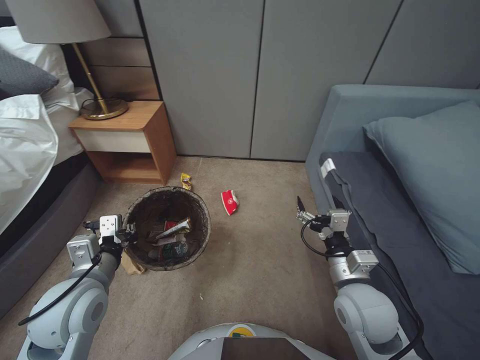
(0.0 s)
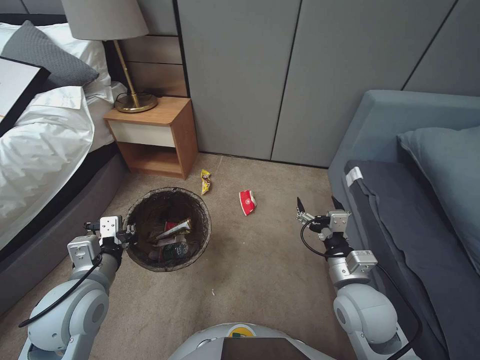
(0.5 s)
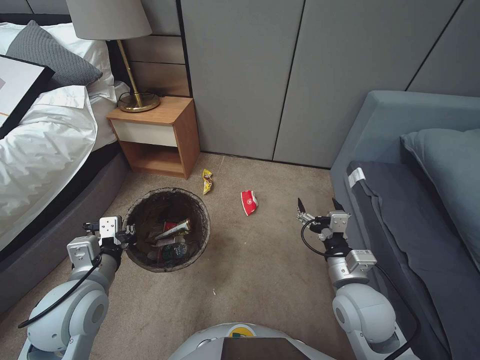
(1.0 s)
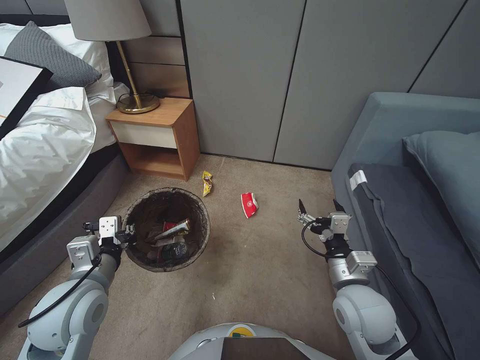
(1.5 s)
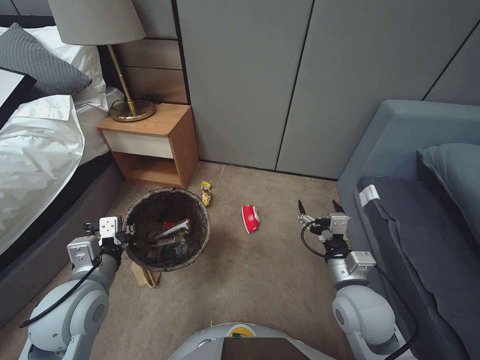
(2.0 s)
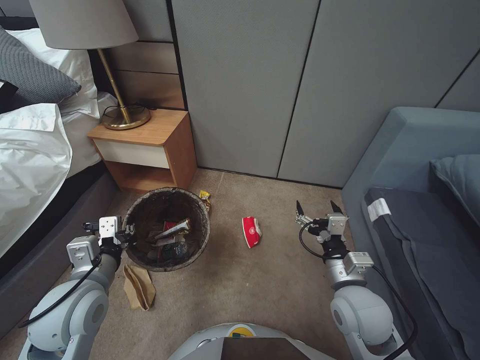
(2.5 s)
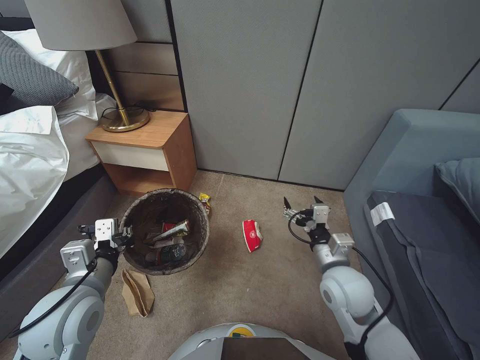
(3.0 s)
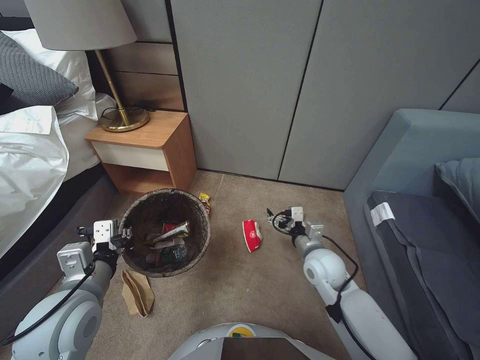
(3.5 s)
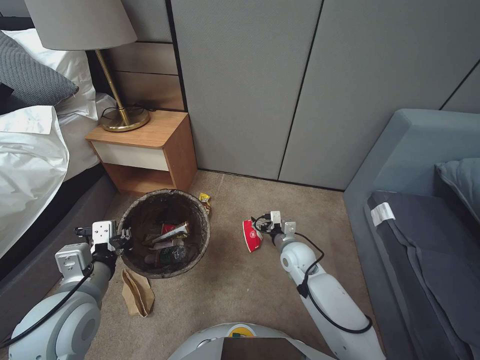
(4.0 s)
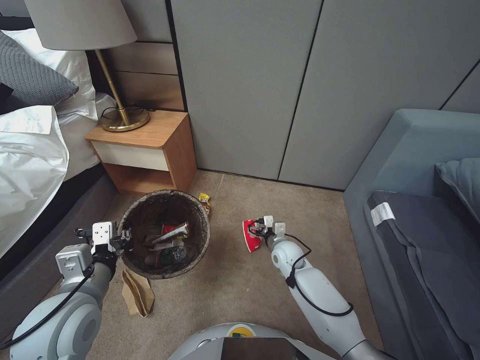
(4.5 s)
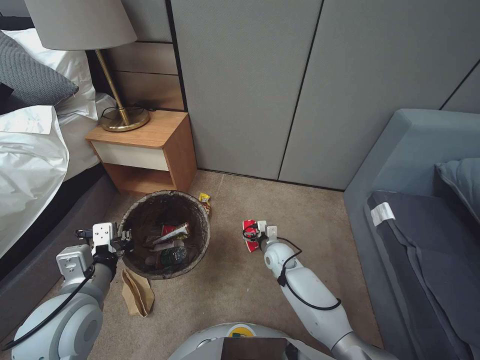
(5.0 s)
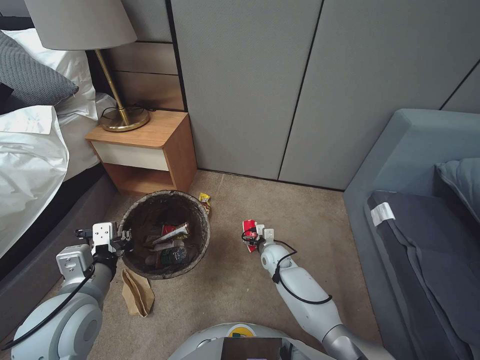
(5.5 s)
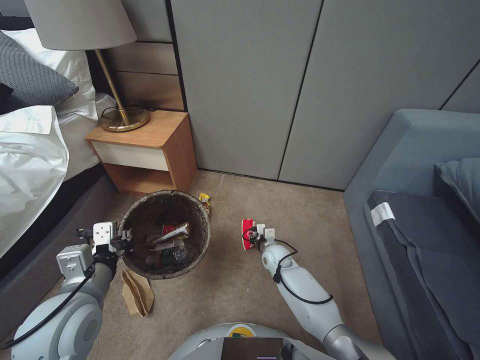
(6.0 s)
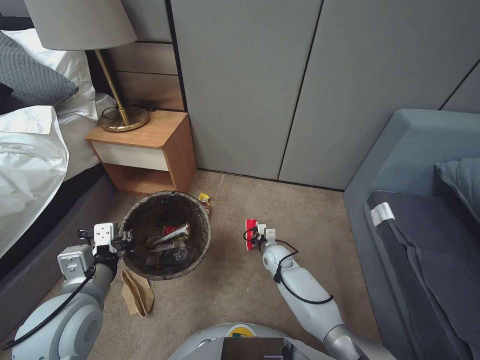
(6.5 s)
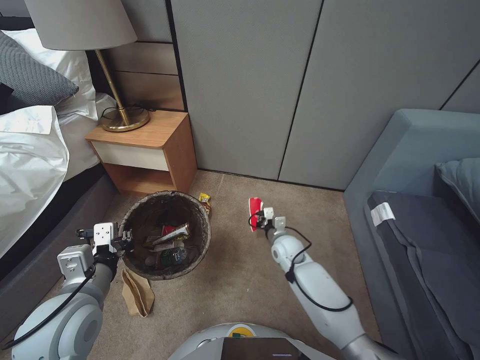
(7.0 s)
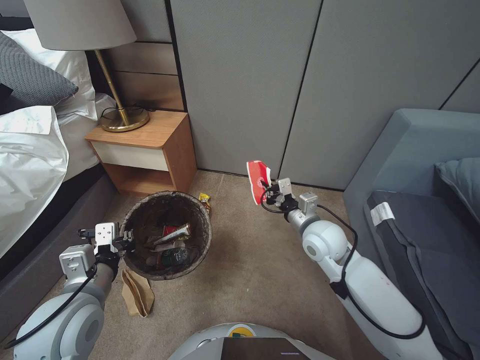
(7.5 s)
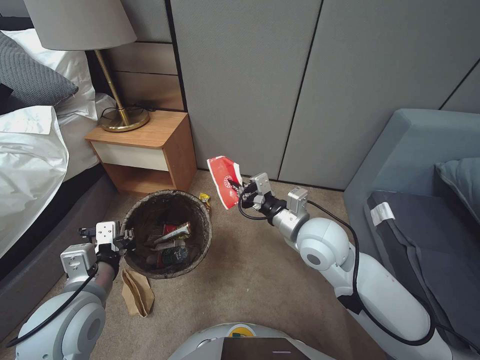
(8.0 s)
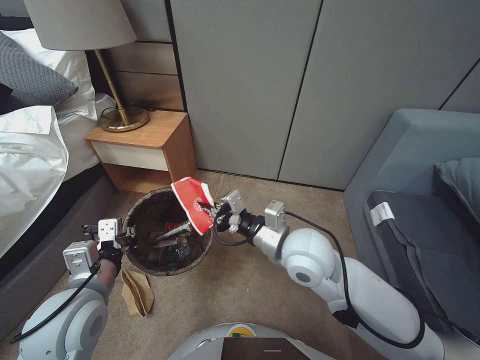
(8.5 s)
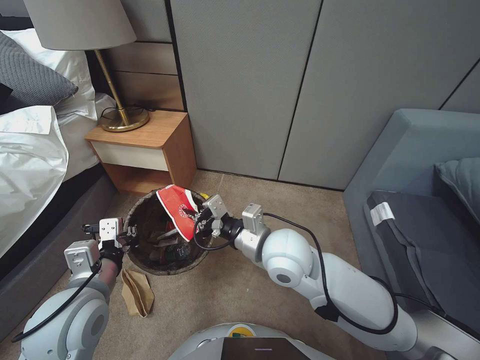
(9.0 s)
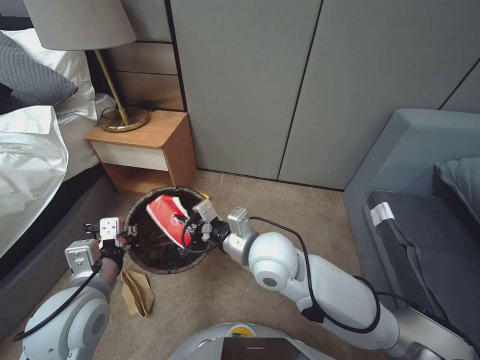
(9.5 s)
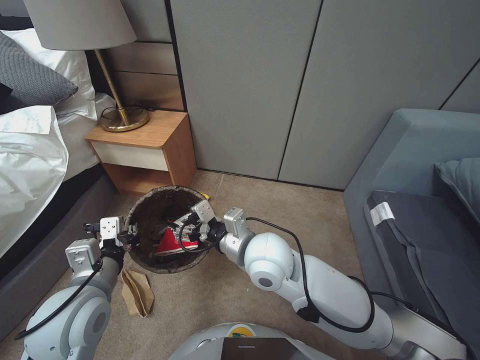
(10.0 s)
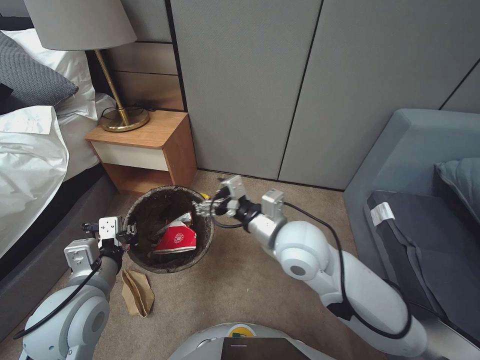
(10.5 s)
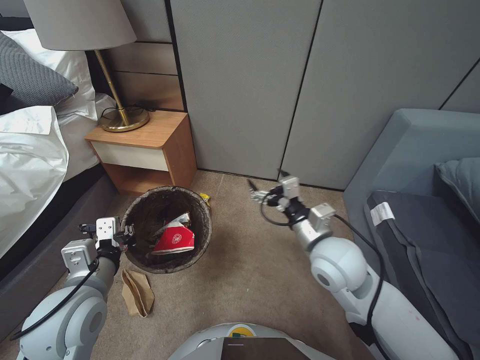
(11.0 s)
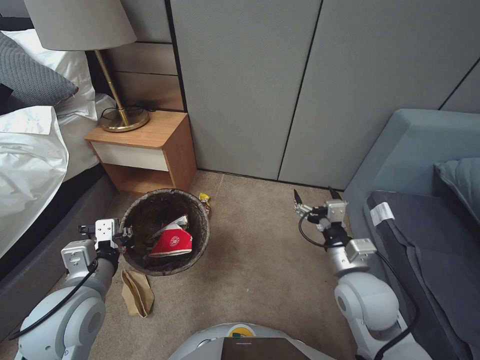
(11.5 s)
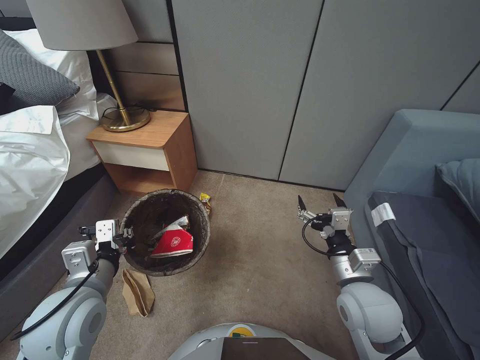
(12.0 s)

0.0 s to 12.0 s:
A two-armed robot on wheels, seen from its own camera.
Task of the whole recording: Pick up the trash bin, then pick up the garbage from the floor and place it into the trash bin.
2.0 to 4.0 s: The right gripper is displaced forward and downward by some 20 cm.
4.0 to 6.0 s: The right gripper heads downward, covering about 10 cm, and closes up.
6.0 to 8.0 s: The right gripper moves upward, approximately 30 cm, and closes up.
8.0 to 10.0 s: The right gripper heads to the left, covering some 10 cm, and opens its fingers.
10.0 to 12.0 s: The right gripper heads to the right, covering approximately 20 cm.

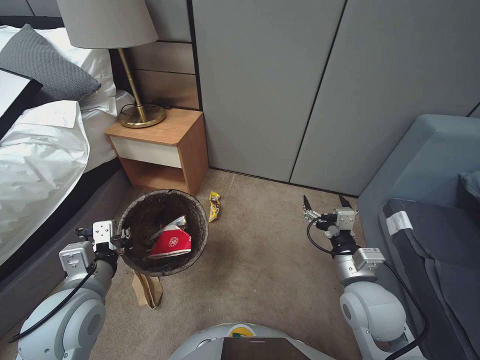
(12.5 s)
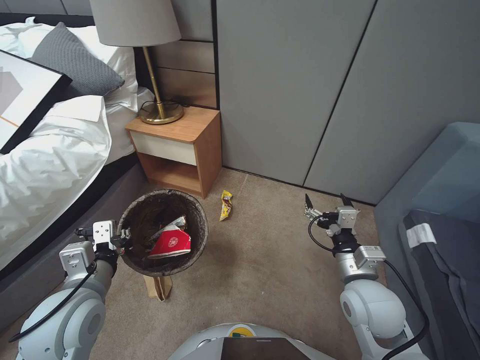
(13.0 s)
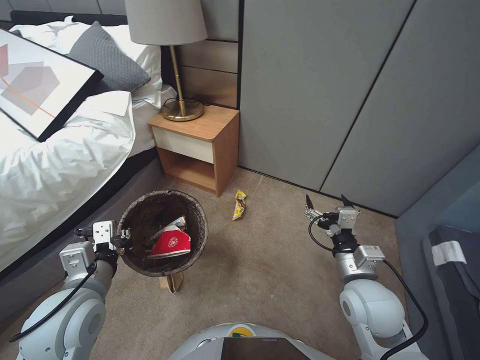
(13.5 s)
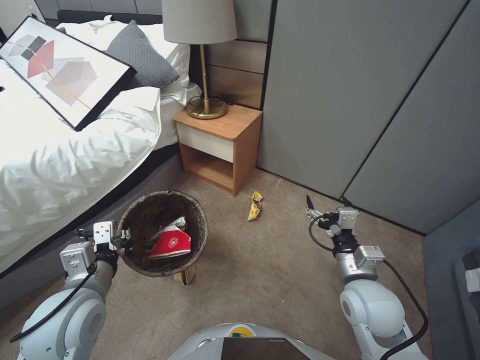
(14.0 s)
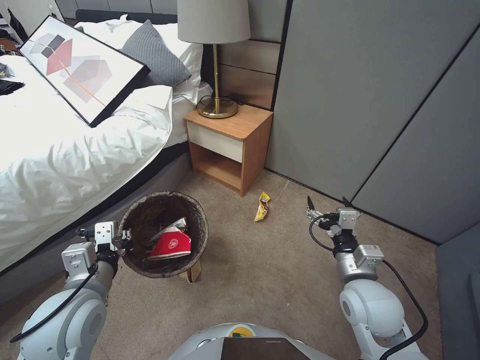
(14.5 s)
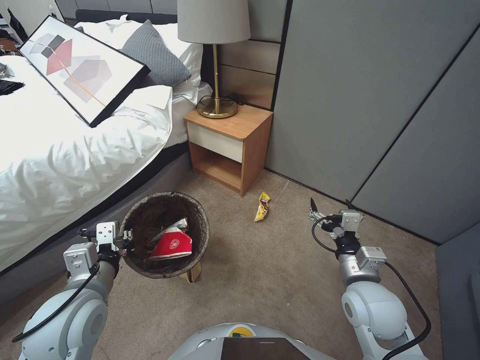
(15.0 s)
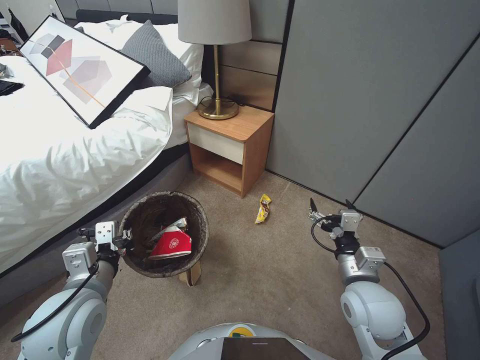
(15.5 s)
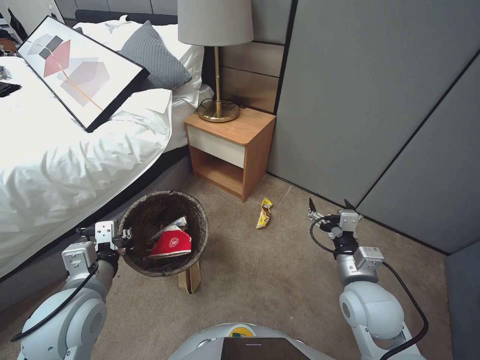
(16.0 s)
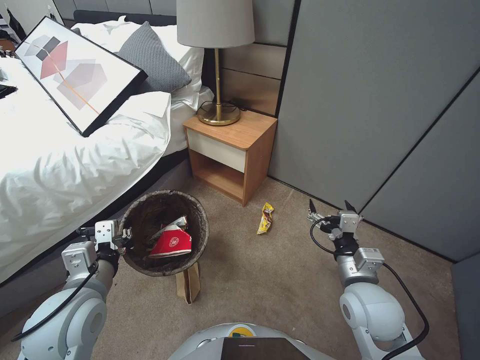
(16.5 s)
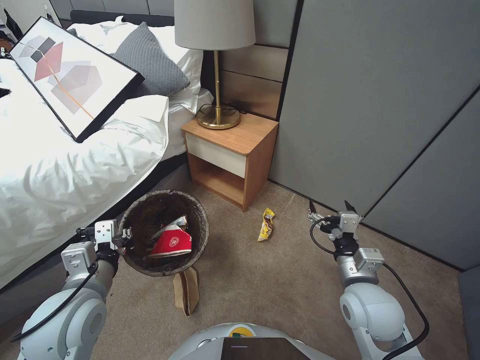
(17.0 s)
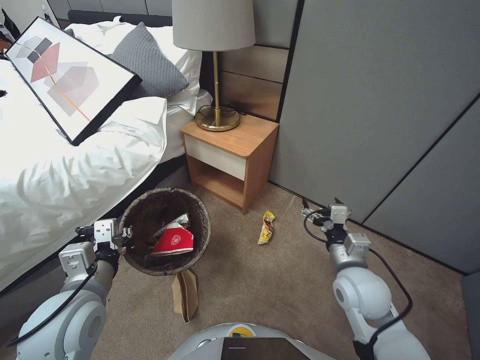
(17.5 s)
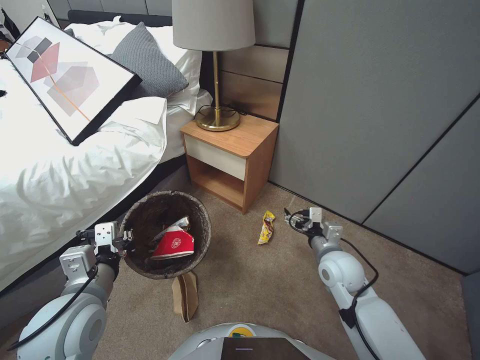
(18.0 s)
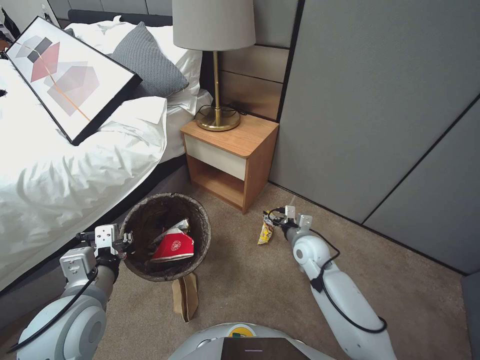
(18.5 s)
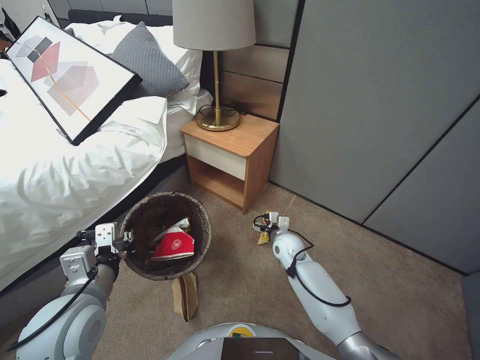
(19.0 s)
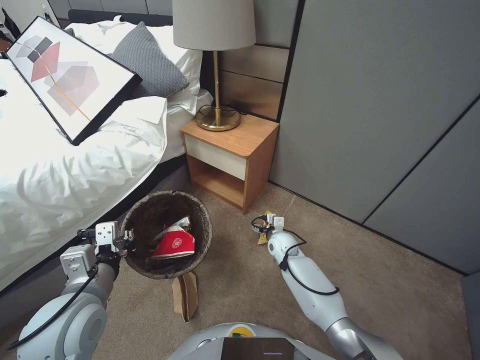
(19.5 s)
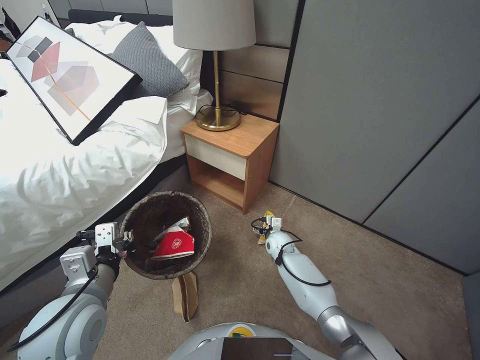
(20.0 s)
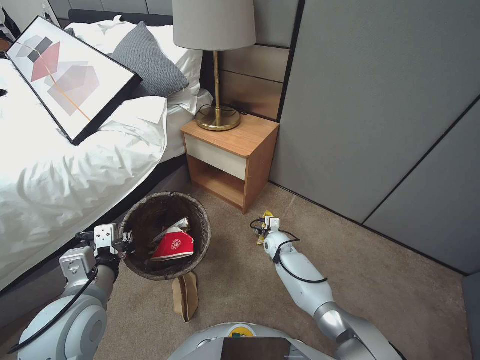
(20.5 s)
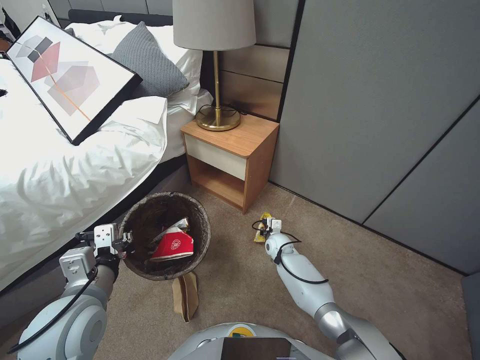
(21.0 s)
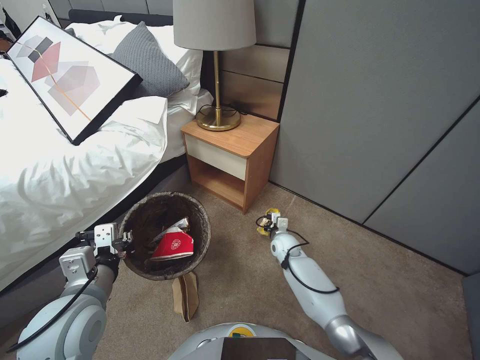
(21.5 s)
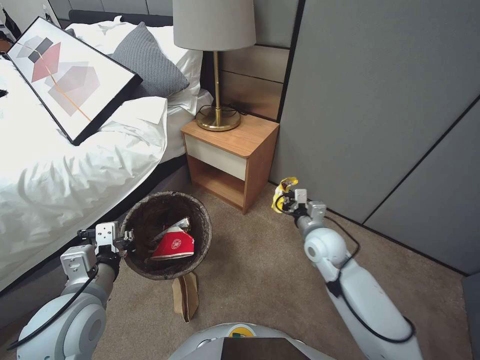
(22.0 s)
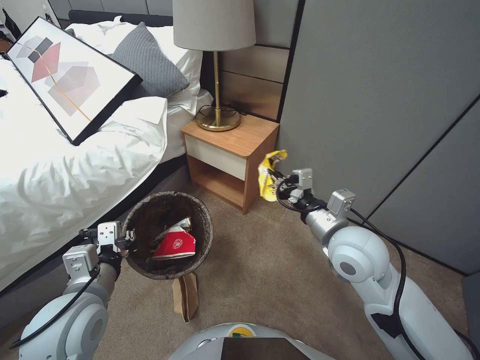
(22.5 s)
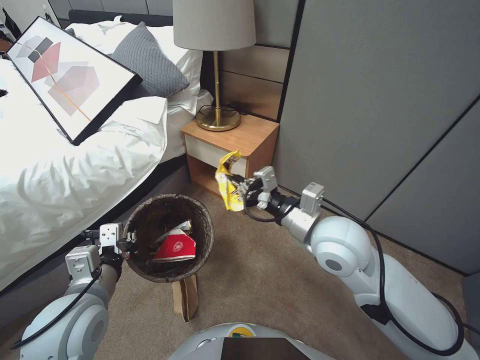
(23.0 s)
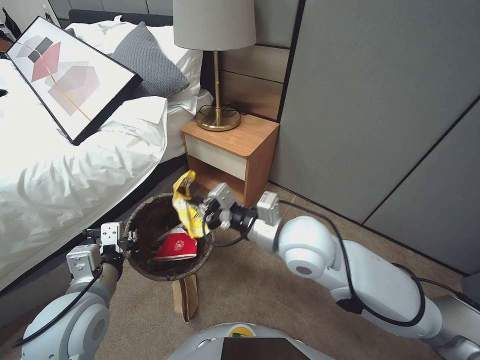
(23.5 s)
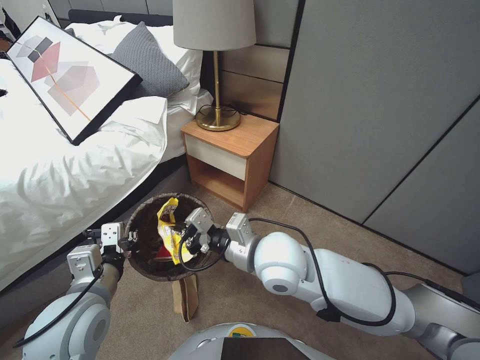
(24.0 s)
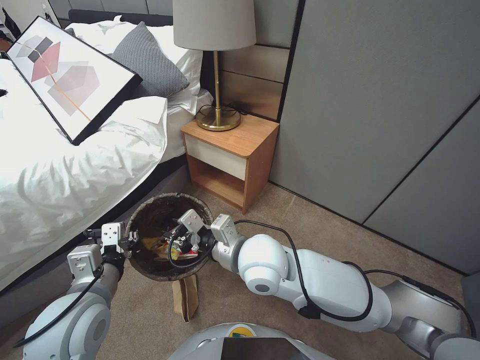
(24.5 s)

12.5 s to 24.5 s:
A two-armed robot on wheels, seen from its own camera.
Task of the whole recording: Pick up the trash bin, then pick up the garbage from the floor and place it into the trash bin.
14.5 to 16.5 s: Both grippers stay about where they are.
16.5 to 18.5 s: The right gripper shifts roughly 15 cm forward and downward.
18.5 to 20.5 s: The right gripper shifts approximately 20 cm downward, forward and to the left.
20.5 to 22.5 s: The right gripper shifts roughly 35 cm upward and backward, and closes its fingers.
22.5 to 24.5 s: The right gripper shifts approximately 20 cm to the left.

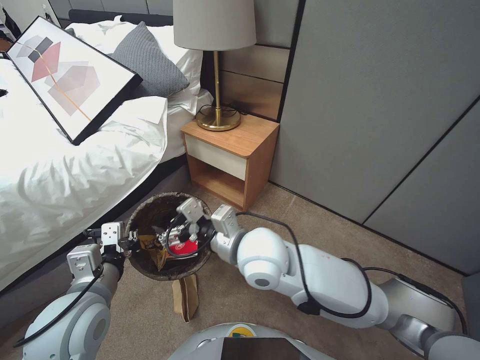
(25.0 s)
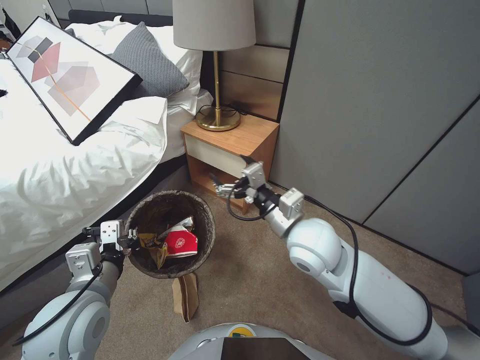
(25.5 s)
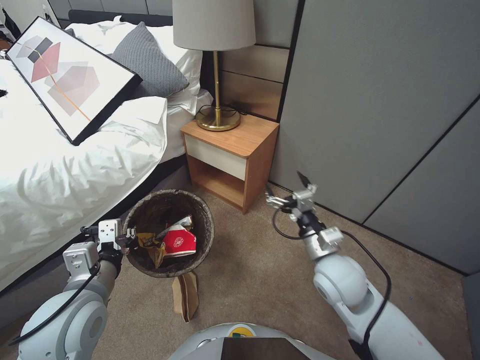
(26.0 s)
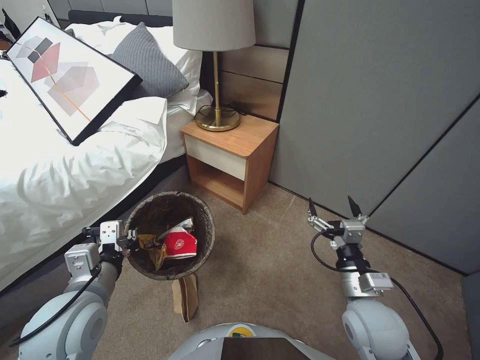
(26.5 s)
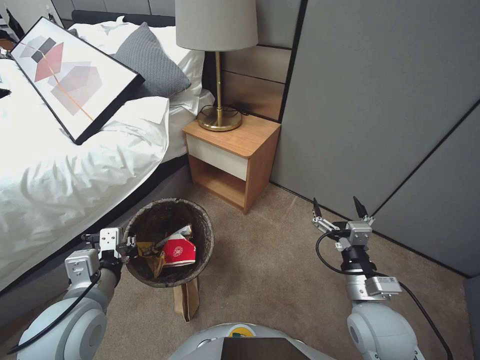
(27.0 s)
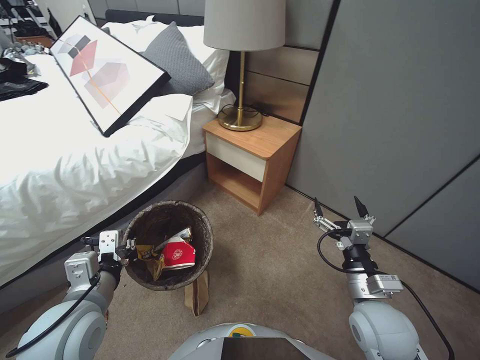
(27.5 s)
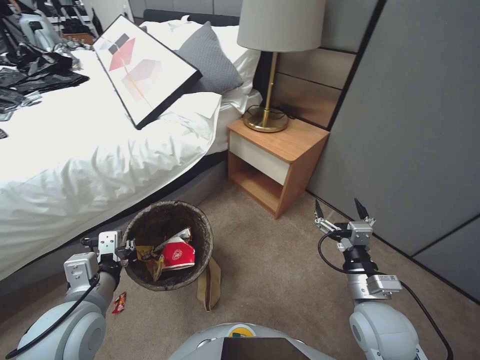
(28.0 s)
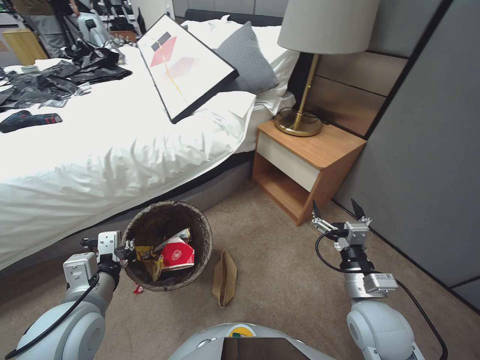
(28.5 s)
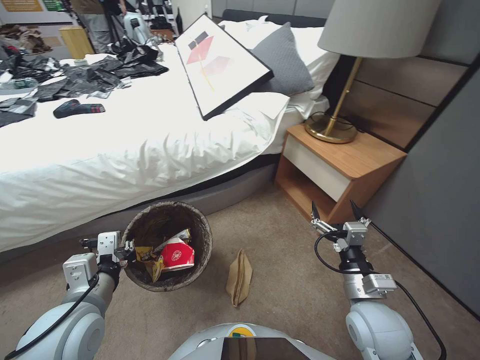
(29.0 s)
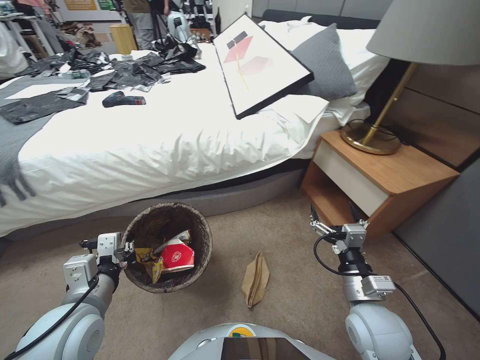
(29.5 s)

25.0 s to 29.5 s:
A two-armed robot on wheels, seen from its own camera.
Task of the whole recording: Pick up the trash bin, then pick up the garbage from the floor and place it into the trash bin.
25.0 to 27.0 s: The right gripper travels to the right, downward and backward by about 25 cm.
